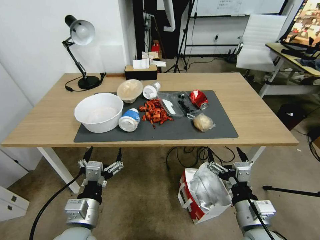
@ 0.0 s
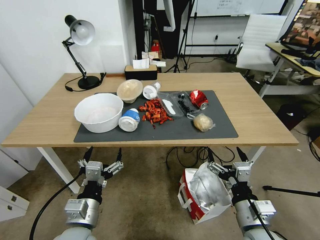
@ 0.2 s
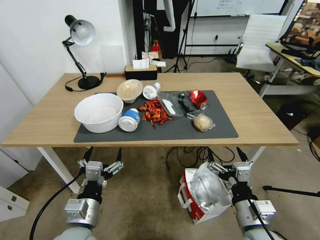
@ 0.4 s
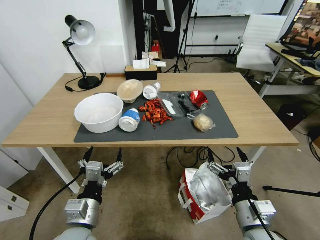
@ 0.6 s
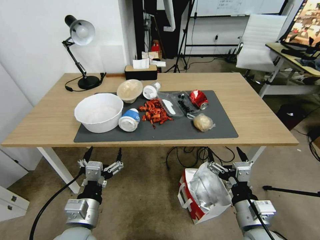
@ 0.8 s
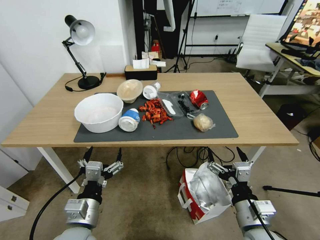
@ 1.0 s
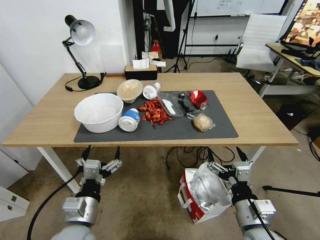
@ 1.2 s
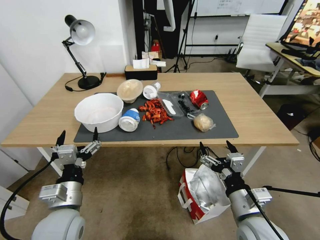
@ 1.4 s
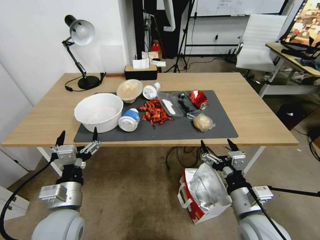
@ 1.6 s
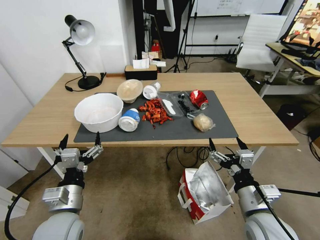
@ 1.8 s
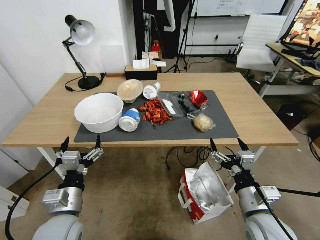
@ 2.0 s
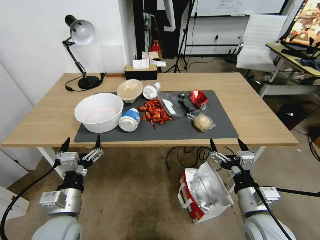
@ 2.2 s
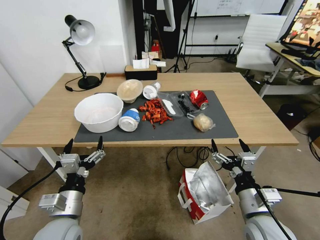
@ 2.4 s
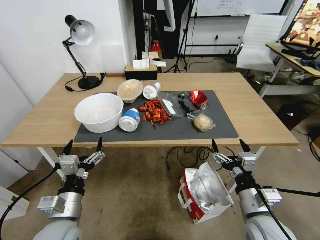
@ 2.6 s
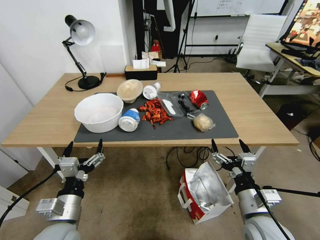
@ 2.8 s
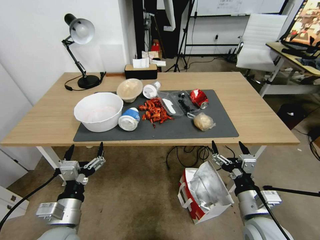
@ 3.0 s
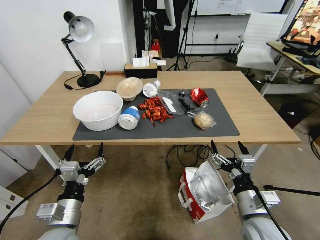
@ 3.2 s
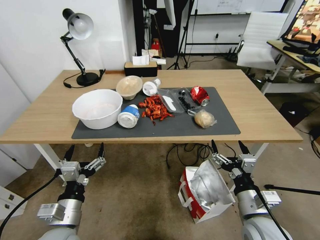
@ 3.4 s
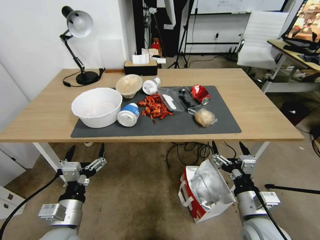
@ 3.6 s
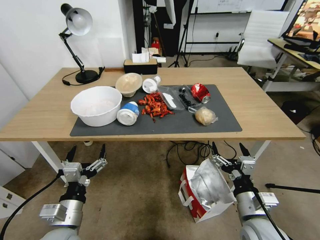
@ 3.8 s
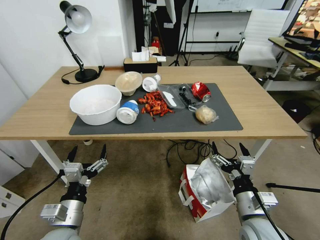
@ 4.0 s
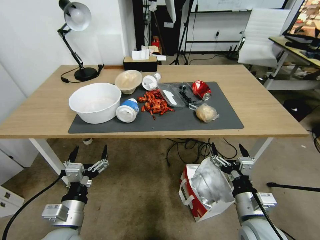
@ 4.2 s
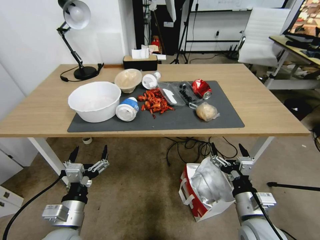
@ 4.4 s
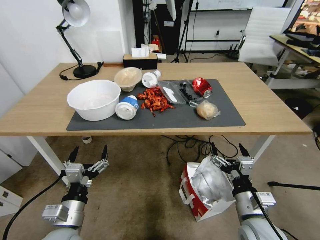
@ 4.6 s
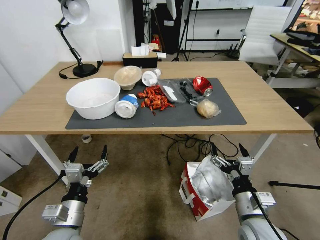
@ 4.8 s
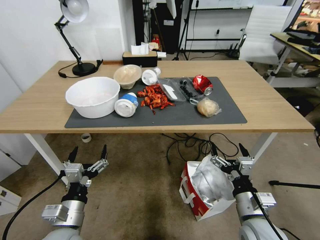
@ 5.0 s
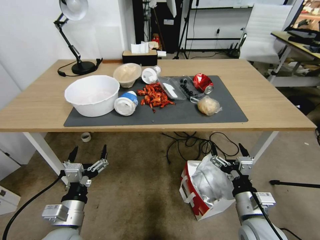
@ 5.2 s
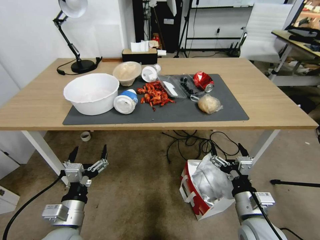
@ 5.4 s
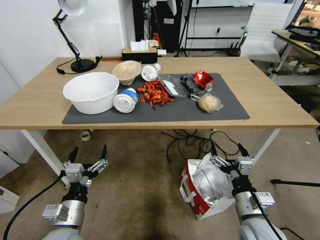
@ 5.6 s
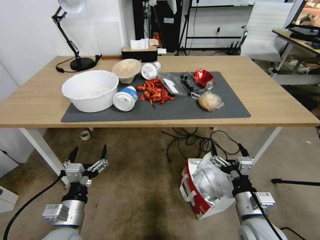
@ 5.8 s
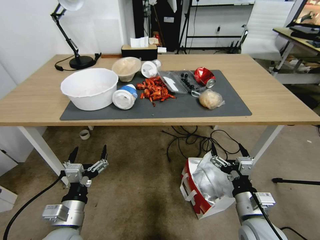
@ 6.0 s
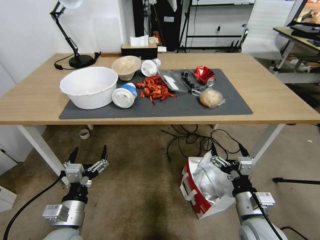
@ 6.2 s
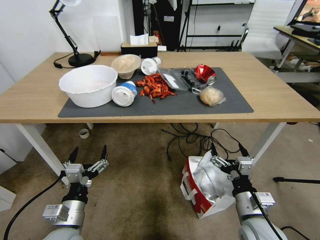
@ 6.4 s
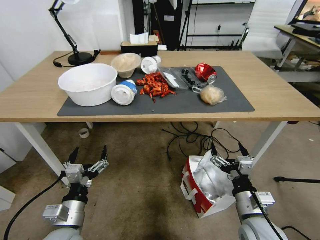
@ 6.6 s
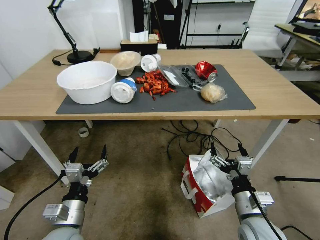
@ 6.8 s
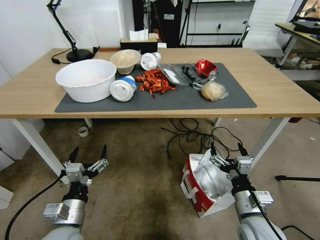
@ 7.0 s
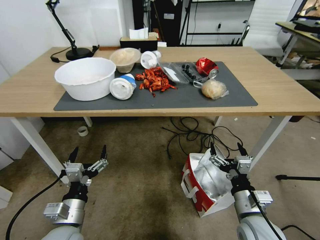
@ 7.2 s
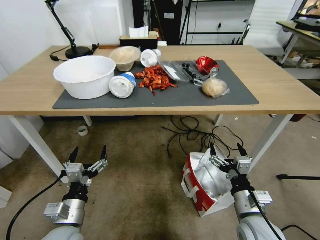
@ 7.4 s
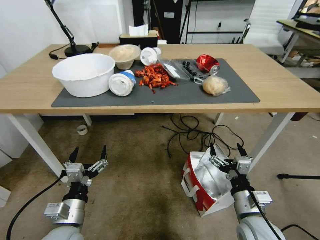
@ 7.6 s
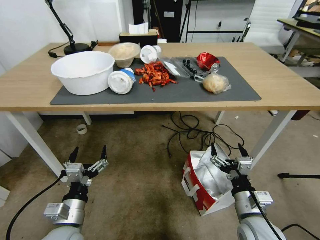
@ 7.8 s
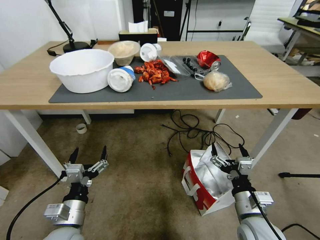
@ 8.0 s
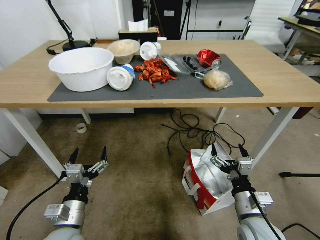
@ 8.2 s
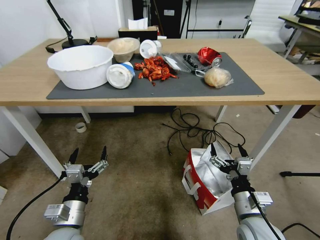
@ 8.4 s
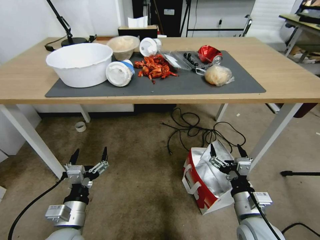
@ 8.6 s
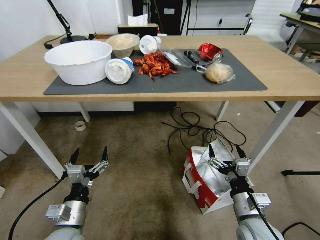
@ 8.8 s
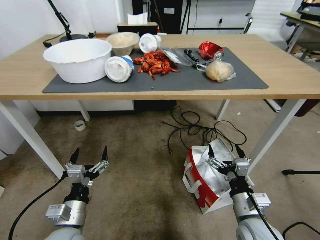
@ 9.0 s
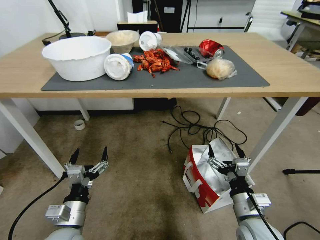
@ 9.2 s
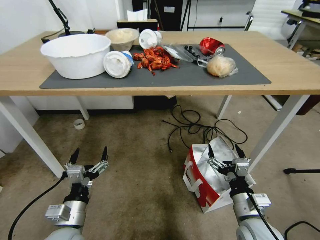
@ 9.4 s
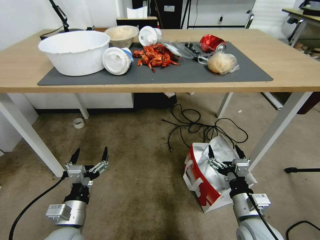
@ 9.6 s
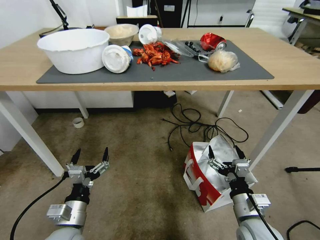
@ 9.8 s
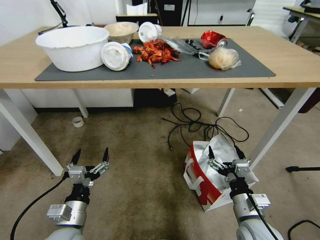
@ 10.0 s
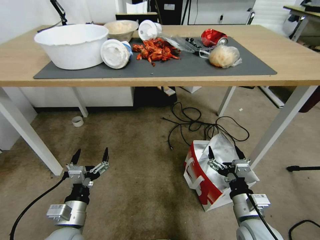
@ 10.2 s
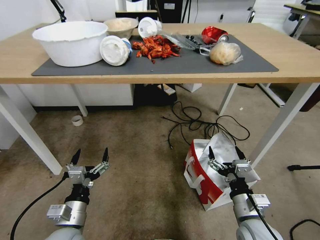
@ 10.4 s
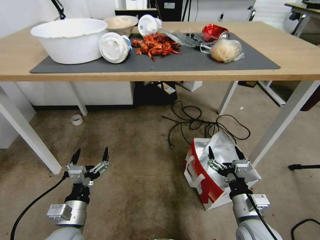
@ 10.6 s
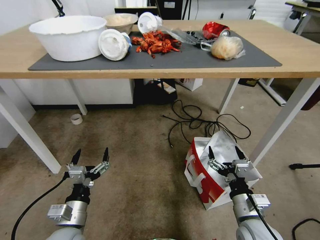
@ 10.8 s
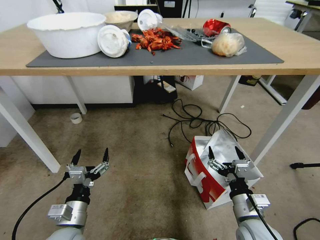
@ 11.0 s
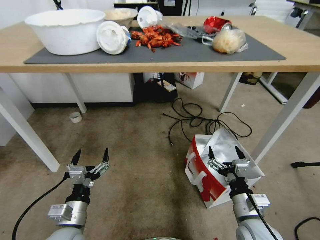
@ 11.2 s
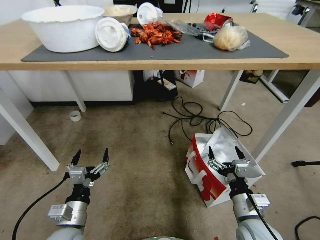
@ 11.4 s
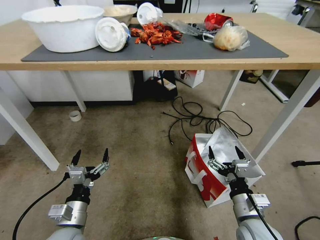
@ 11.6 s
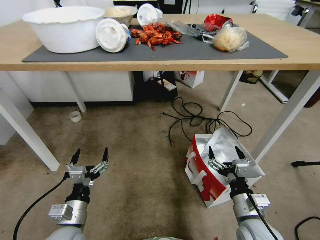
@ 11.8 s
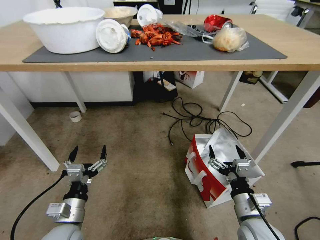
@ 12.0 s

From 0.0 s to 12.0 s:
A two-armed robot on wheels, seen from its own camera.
Task of the whole recording: Pick up the food delivery bag from the floor and place it on the table.
From 1.6 s to 3.0 s: There are only small adjustments of the grippers.

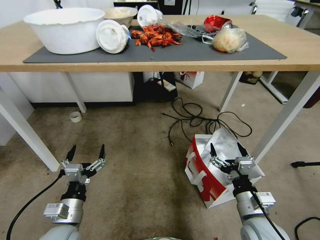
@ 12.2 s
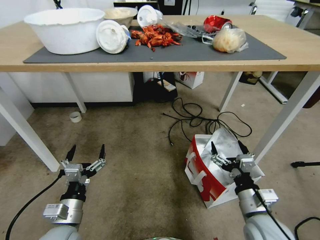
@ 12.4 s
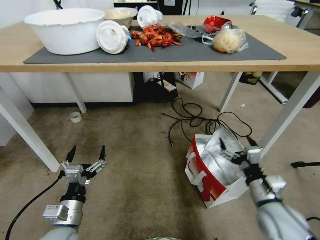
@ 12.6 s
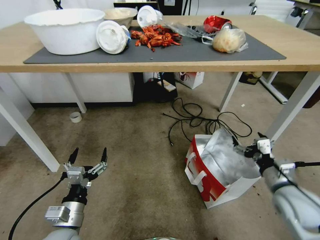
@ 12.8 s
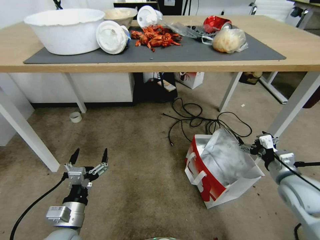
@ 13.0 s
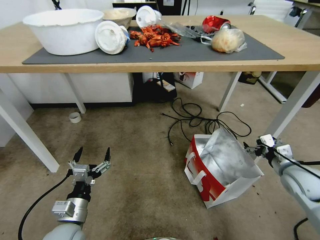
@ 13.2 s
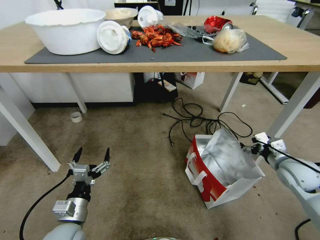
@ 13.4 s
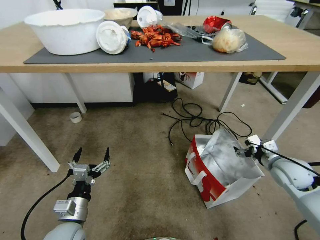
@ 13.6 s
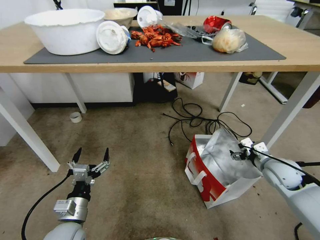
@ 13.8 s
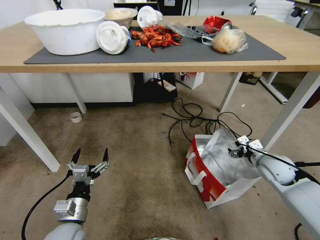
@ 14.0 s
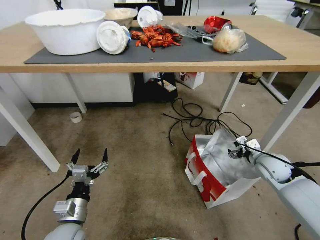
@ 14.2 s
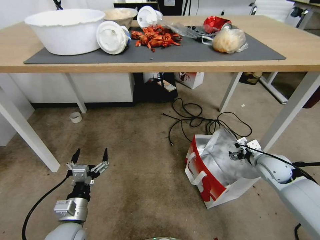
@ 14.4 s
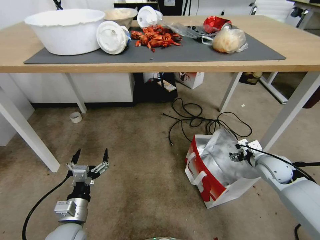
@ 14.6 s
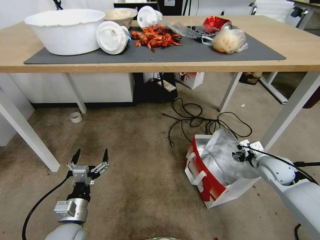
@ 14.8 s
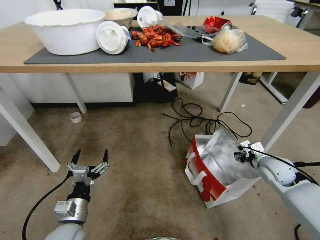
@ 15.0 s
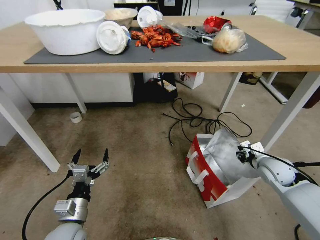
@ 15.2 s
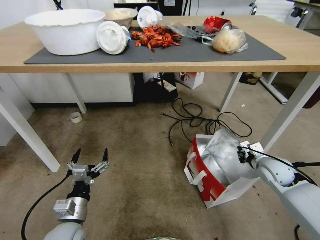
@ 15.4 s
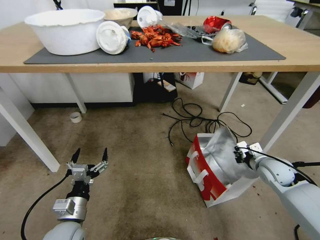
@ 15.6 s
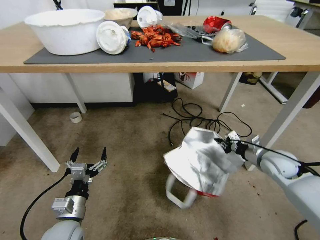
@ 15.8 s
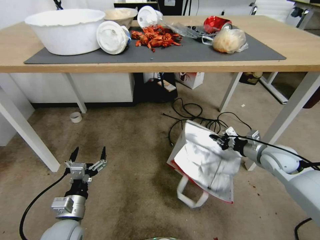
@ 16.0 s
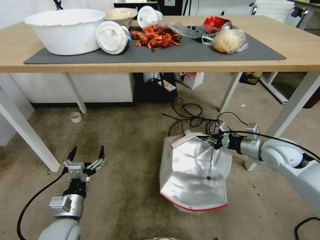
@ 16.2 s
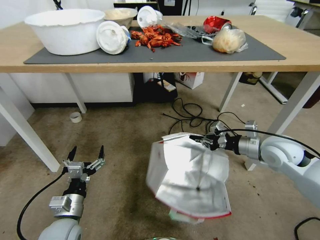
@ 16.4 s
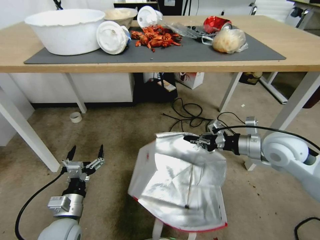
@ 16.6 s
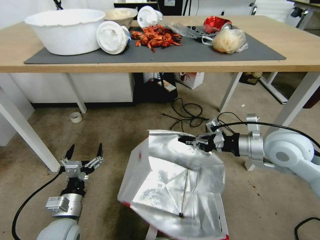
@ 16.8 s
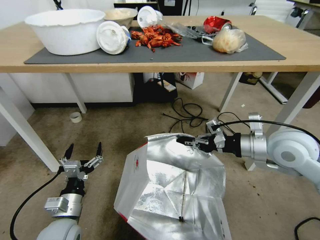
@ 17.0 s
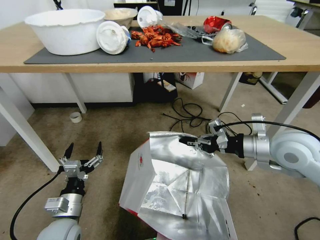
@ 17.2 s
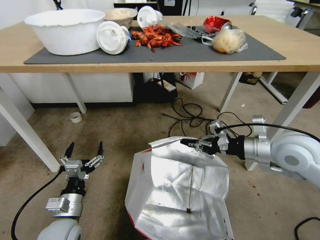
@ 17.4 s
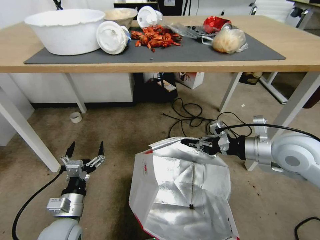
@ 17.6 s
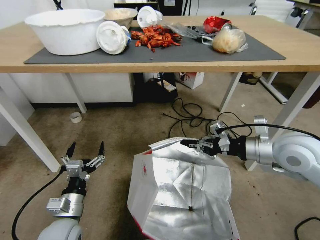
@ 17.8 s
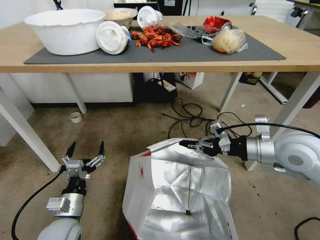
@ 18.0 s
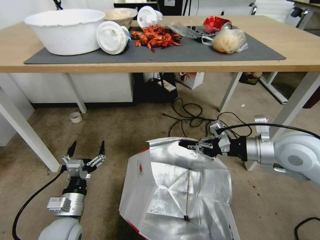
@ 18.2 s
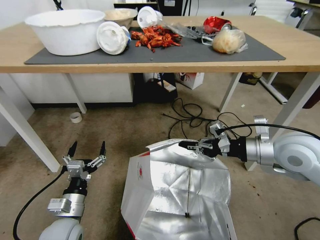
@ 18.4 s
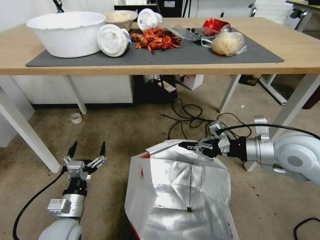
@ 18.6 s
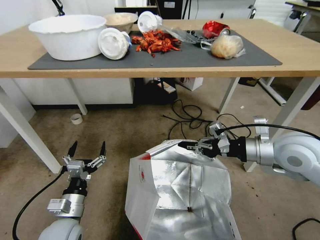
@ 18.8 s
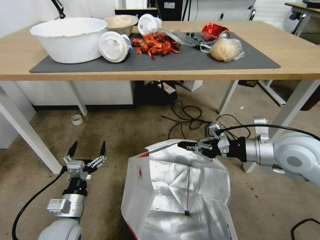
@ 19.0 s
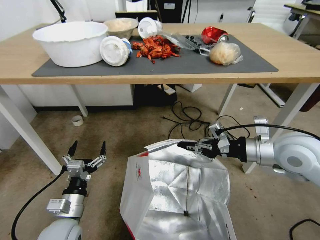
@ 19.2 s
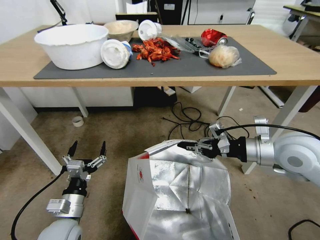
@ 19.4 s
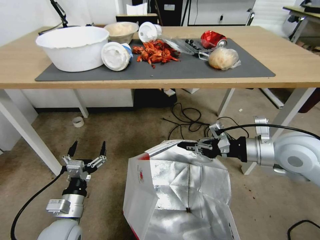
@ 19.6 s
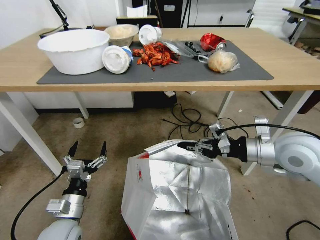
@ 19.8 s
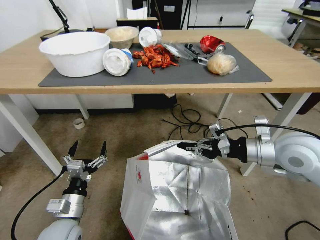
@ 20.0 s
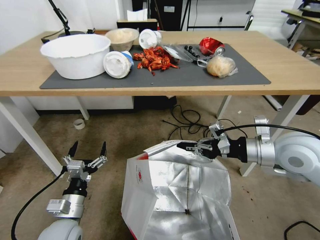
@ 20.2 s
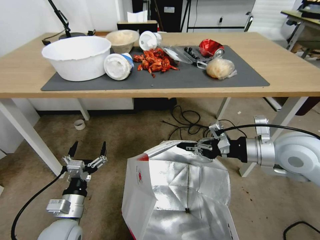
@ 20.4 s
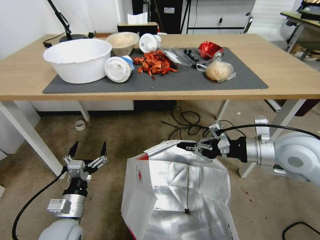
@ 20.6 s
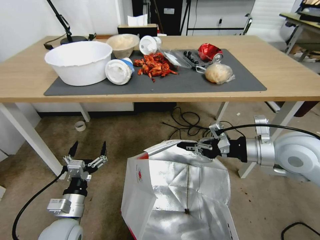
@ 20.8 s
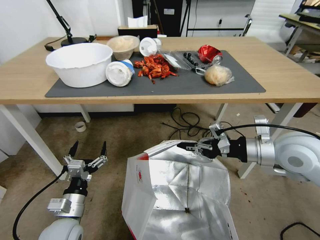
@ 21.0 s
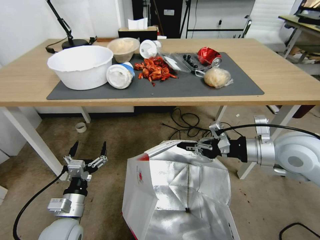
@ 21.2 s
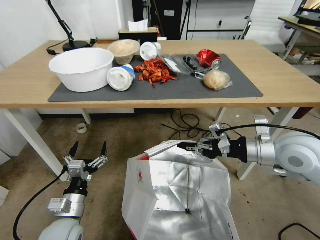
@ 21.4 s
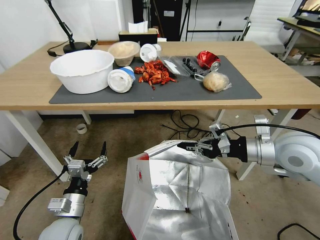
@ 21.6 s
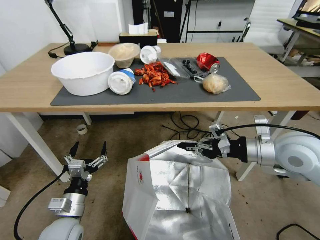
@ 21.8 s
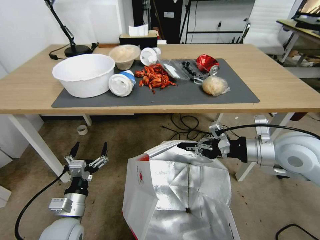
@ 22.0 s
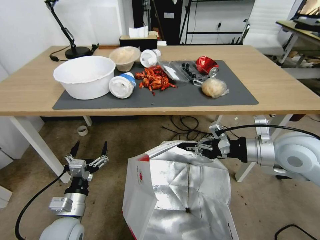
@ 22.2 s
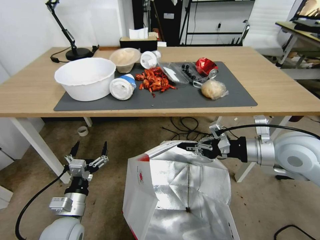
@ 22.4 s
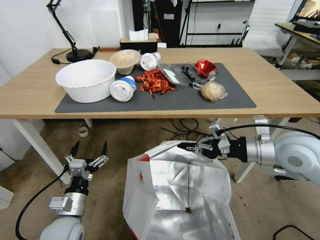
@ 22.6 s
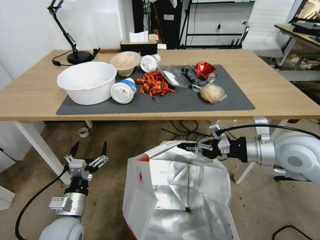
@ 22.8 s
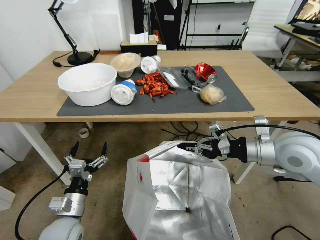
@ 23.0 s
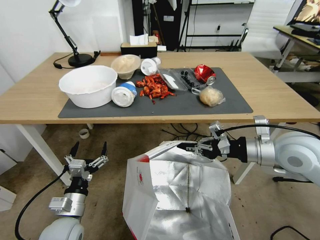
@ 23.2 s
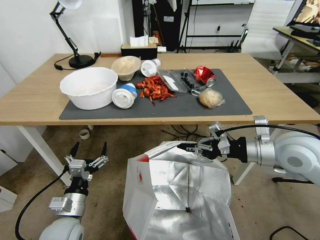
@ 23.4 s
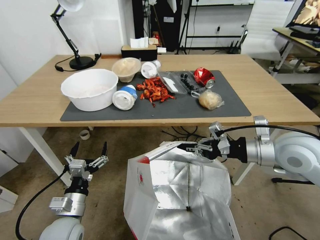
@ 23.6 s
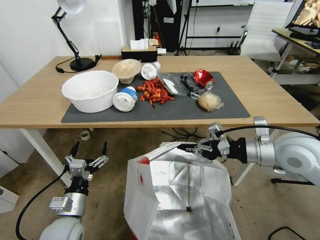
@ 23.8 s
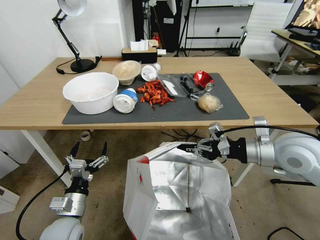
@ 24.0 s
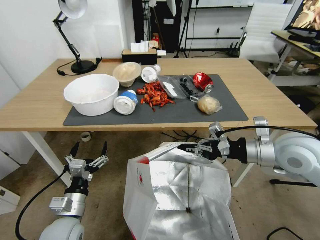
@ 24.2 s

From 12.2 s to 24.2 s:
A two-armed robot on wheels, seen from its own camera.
Task of the whole recording: Pick up the food delivery bag from the floor and place it on the table.
From 12.2 s to 13.8 s: The right gripper shifts roughly 20 cm forward and to the right.
From 13.8 s to 15.2 s: The right gripper closes its fingers.
From 15.2 s to 16.6 s: The right gripper moves upward and to the left, some 15 cm, and closes.
From 16.6 s to 18.2 s: The grippers make only small movements.
